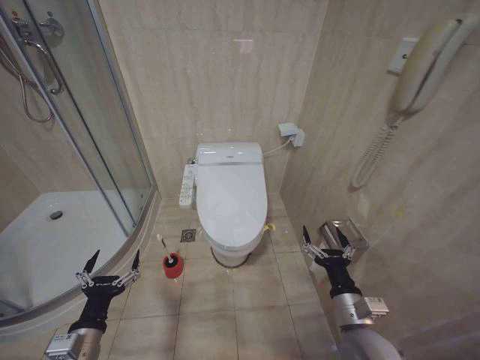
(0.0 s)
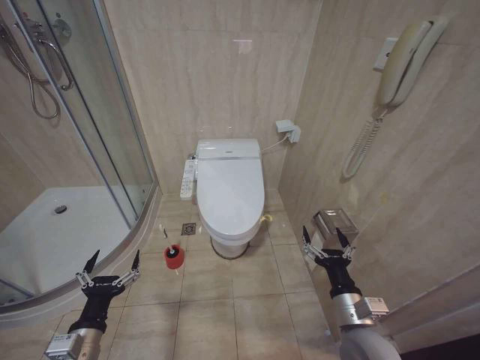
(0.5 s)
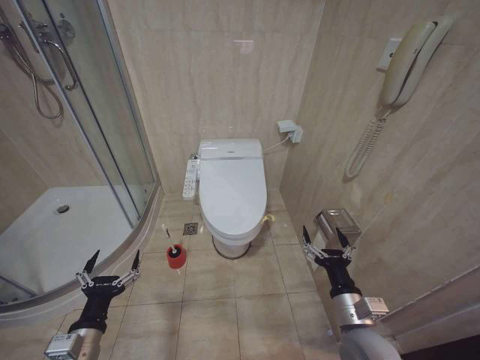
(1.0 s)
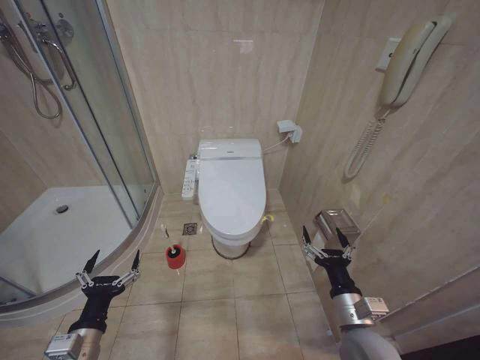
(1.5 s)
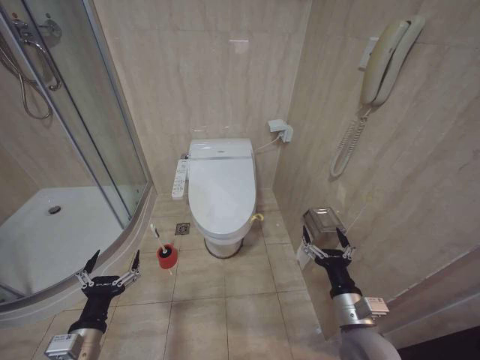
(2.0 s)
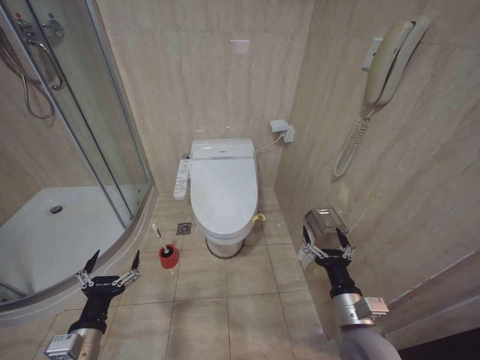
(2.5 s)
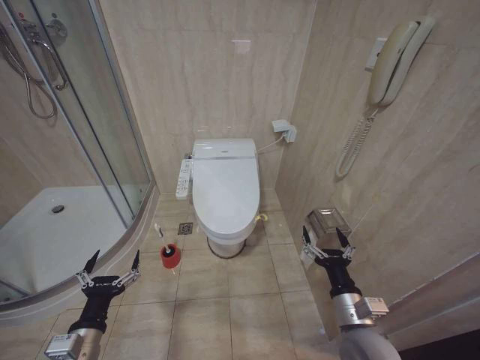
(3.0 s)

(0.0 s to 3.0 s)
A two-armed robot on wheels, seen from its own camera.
Task of the whole recording: Open the toilet lid, clean the toilet bowl with a toilet brush, close the toilet lid, and flush.
0.0 s - 3.0 s: Both grippers stay put.
